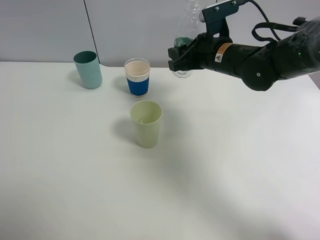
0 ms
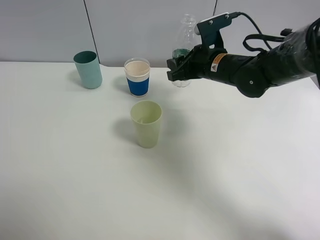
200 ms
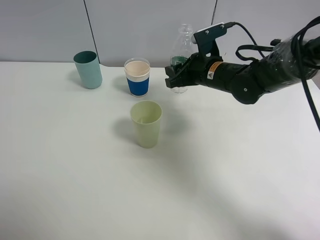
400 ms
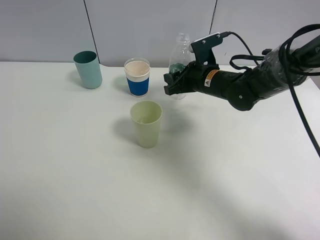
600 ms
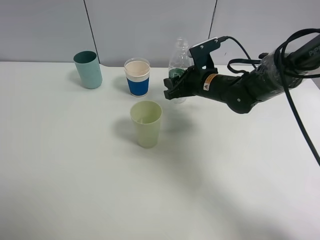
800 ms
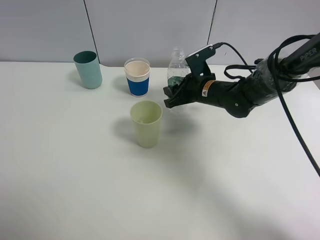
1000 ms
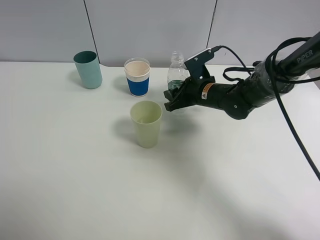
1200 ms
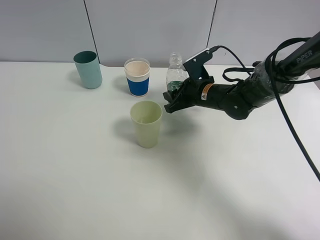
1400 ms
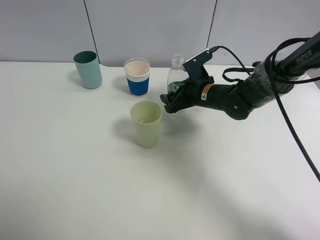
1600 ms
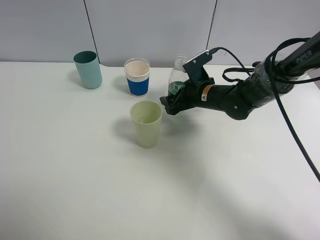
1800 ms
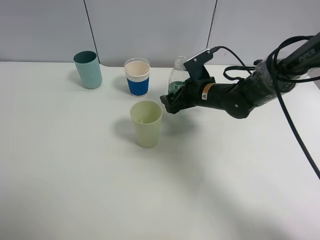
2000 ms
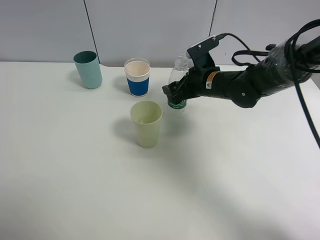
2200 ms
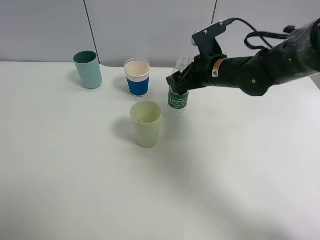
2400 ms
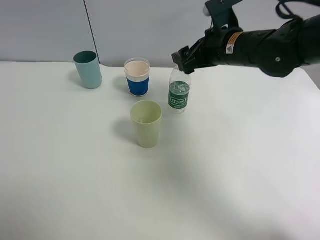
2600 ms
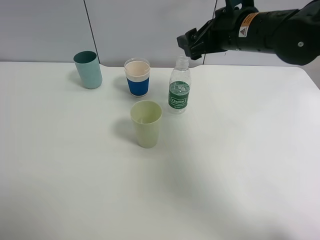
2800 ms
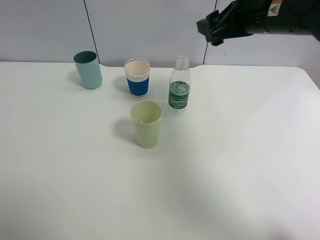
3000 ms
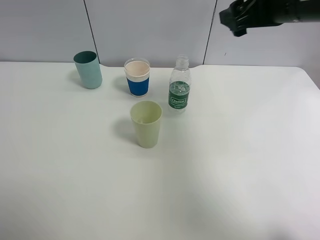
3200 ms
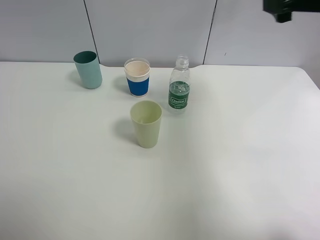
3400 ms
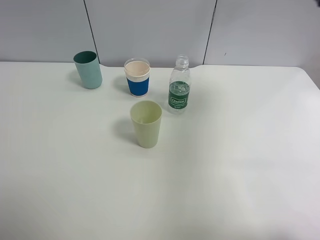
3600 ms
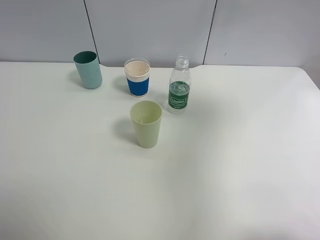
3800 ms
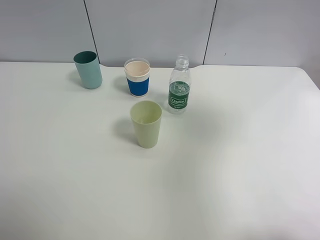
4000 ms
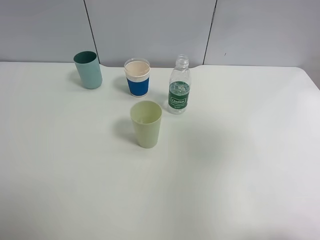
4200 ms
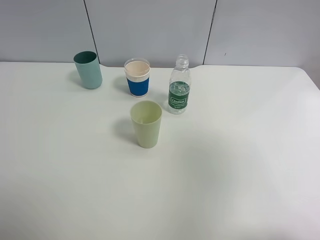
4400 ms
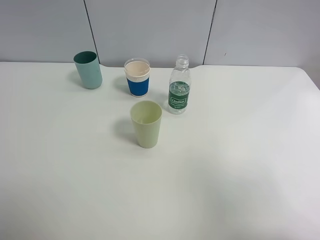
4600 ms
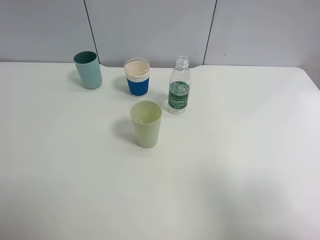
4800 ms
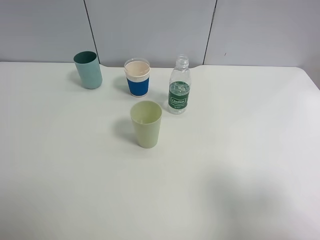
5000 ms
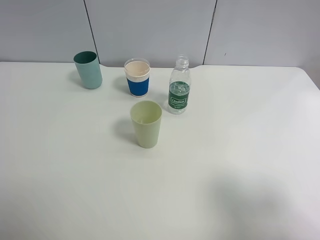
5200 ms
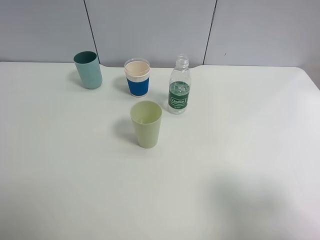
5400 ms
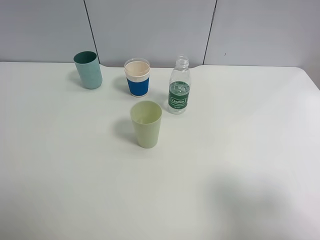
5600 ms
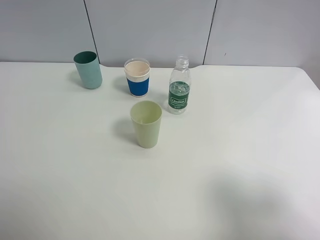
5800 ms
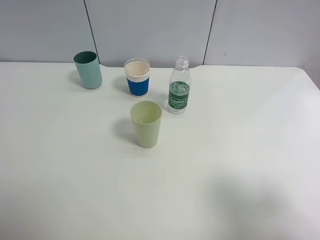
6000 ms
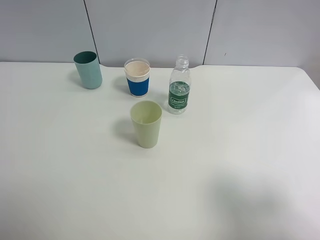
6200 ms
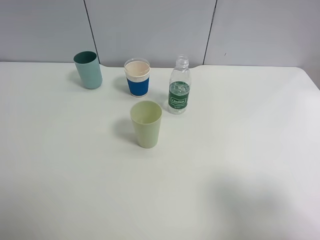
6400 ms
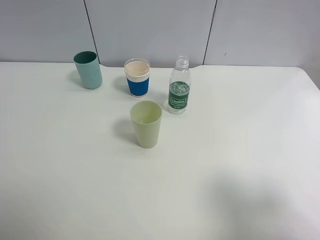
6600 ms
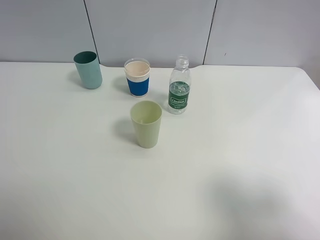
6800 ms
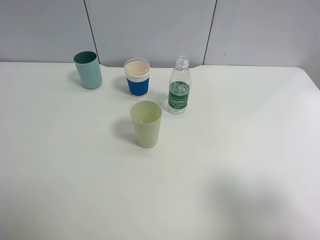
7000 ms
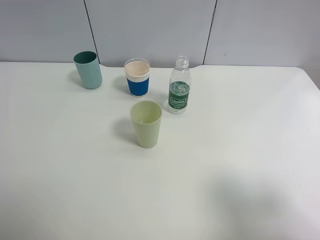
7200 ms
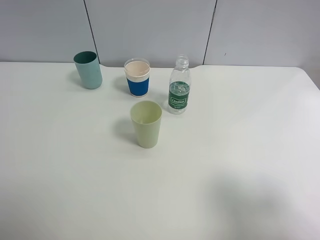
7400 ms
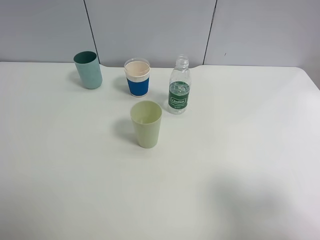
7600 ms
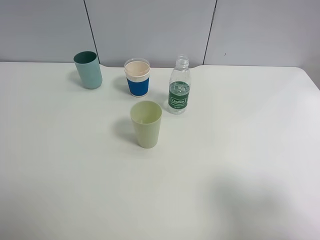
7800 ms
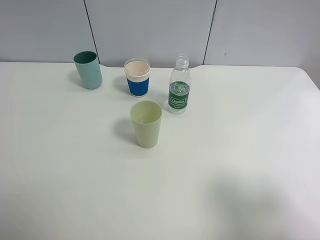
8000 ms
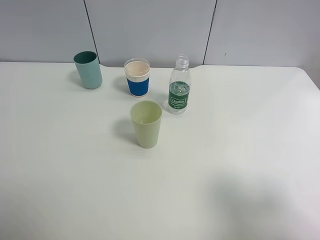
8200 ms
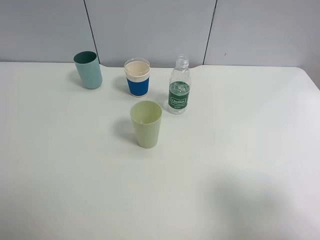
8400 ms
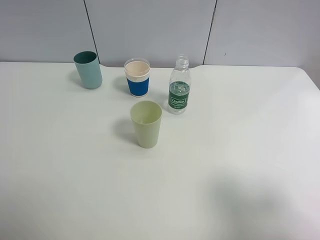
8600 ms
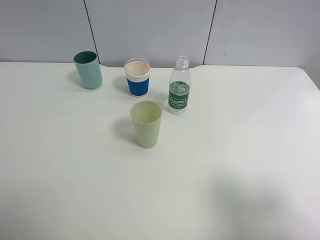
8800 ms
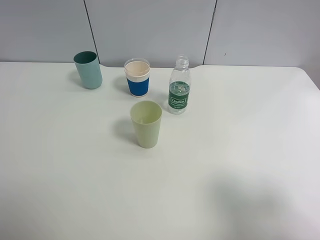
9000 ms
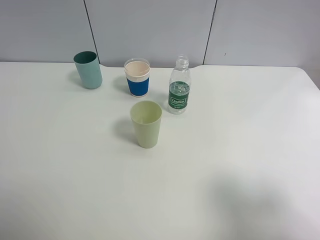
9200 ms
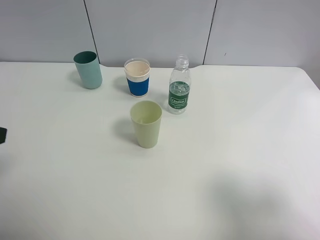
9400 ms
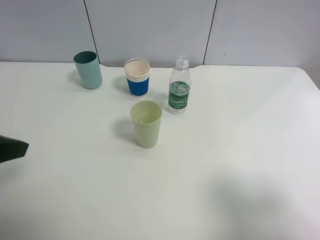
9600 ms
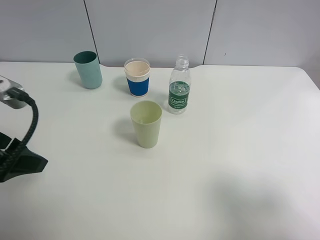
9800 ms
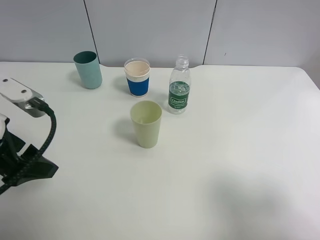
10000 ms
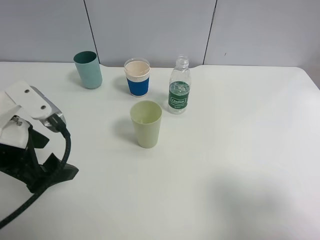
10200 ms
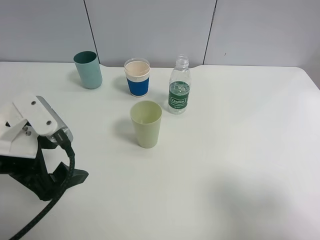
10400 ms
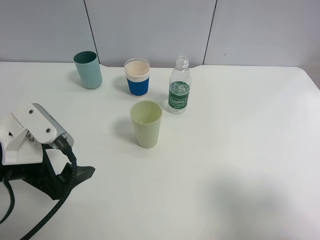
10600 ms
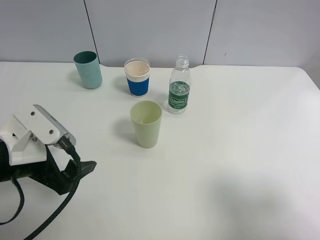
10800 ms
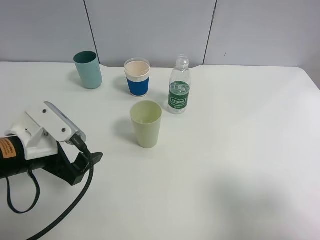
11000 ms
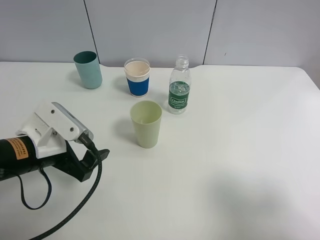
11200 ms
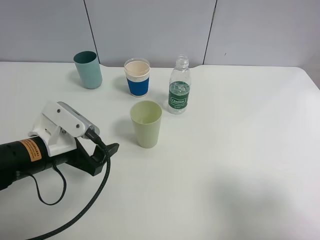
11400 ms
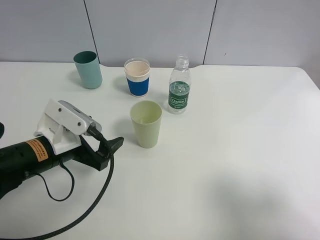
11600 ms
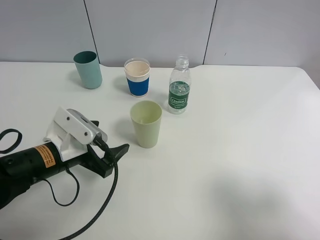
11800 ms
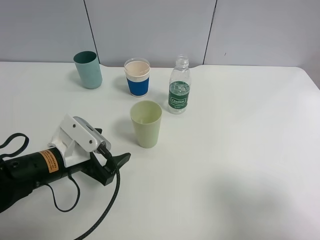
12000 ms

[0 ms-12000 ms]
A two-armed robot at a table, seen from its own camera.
Task of the whole recording: use a clamp to hold the bottle of the drink, pour the beverage into a random cup, then clamp the cup containing the drink and pour the drink into another random cup.
0 ms to 1600 ms: The right gripper is displaced downward by about 10 cm, and opens its fingers.
1600 ms to 3000 ms: The right gripper travels upward by some 20 cm.
3000 ms to 4400 ms: The right gripper goes approximately 30 cm backward and to the right.
4400 ms to 6000 ms: The right gripper shifts roughly 15 cm downward.
6000 ms to 7600 ms: Both grippers stay about where they are.
9000 ms to 10400 ms: The left gripper moves downward, forward and to the right, about 20 cm.
10400 ms to 12000 ms: The left gripper is displaced downward by some 10 cm.

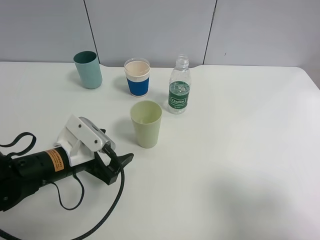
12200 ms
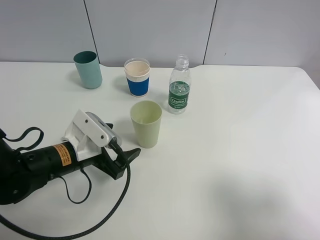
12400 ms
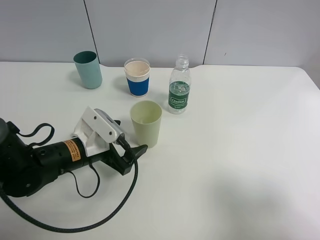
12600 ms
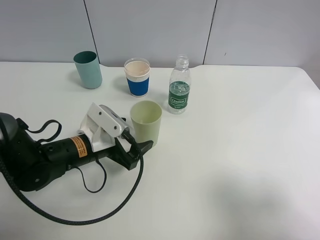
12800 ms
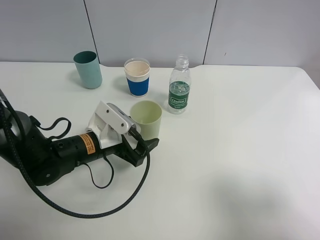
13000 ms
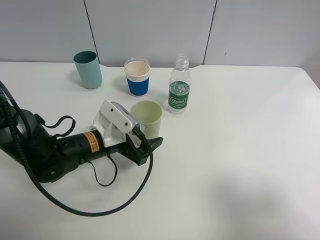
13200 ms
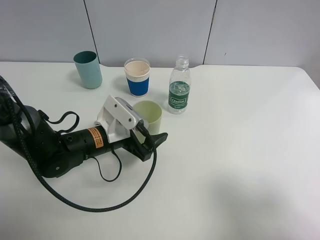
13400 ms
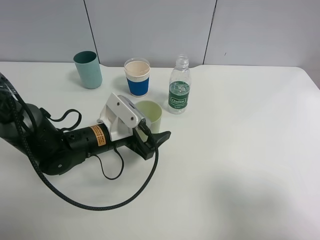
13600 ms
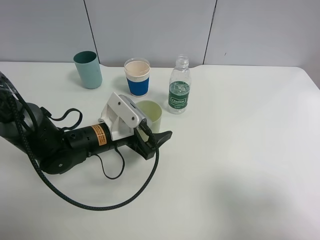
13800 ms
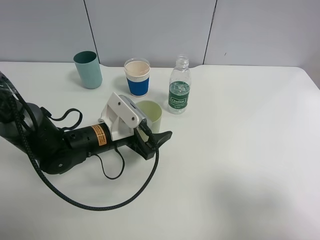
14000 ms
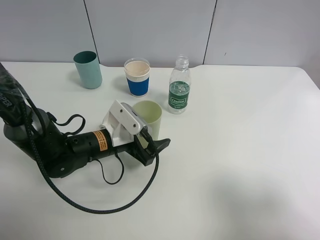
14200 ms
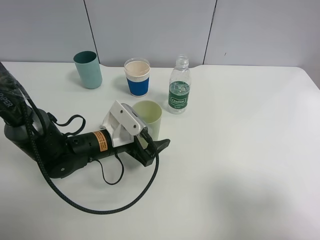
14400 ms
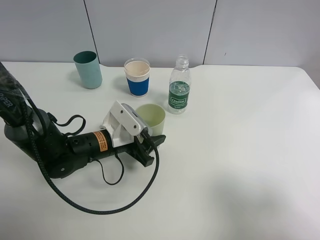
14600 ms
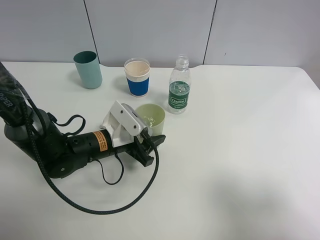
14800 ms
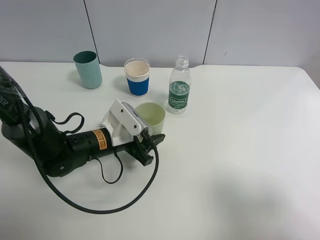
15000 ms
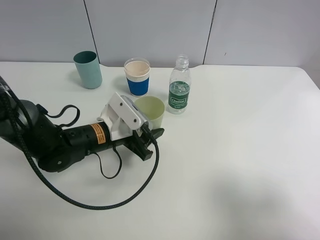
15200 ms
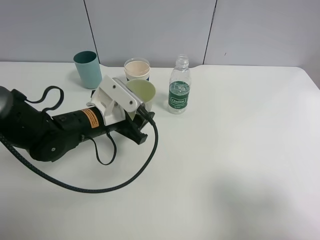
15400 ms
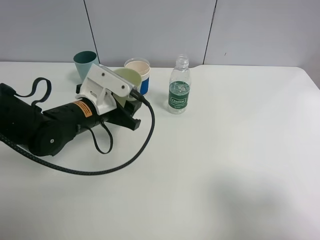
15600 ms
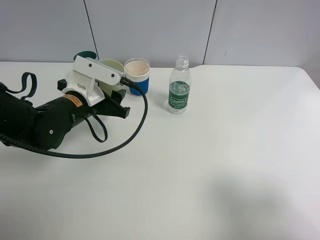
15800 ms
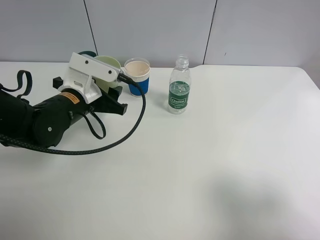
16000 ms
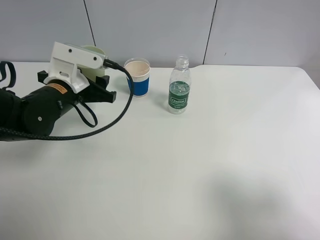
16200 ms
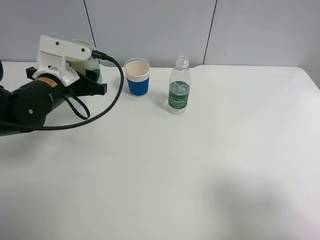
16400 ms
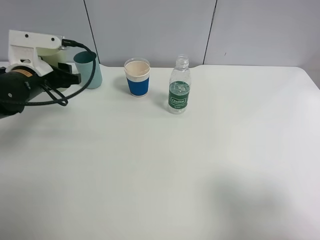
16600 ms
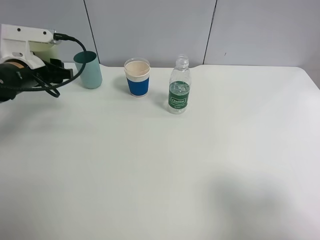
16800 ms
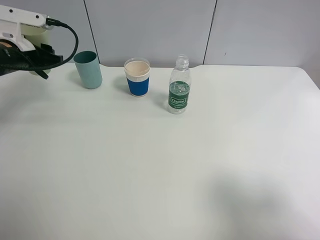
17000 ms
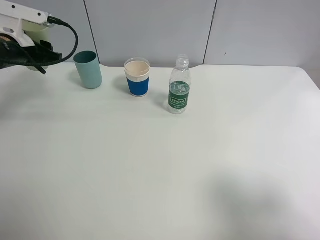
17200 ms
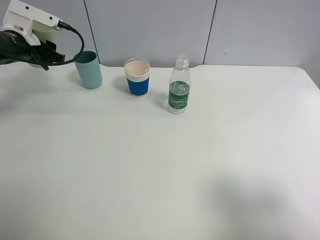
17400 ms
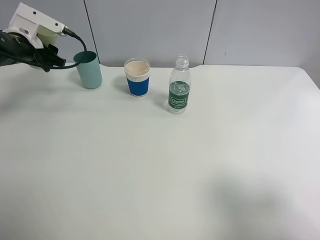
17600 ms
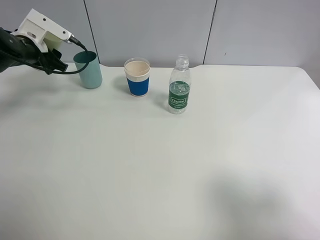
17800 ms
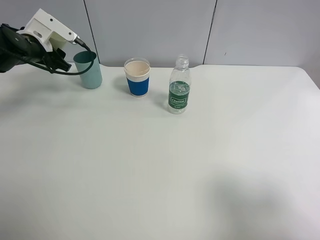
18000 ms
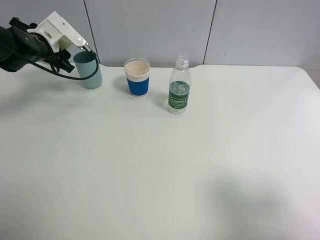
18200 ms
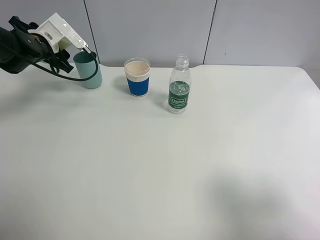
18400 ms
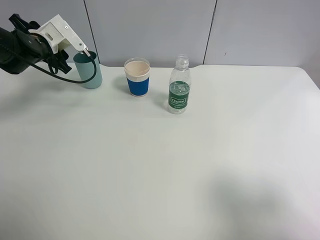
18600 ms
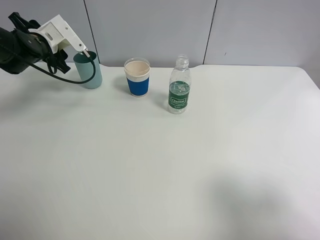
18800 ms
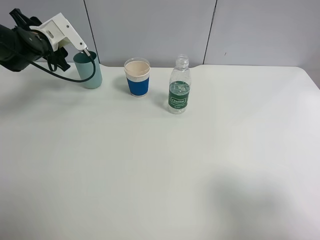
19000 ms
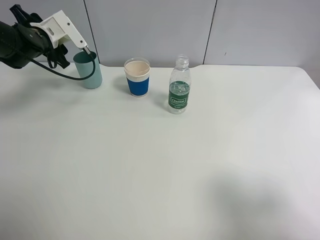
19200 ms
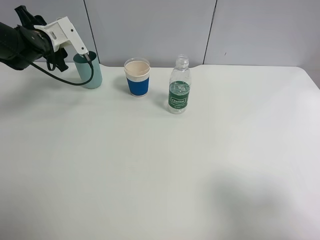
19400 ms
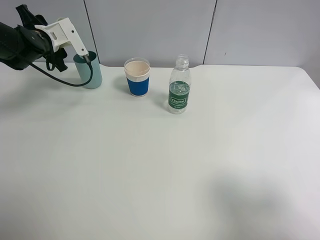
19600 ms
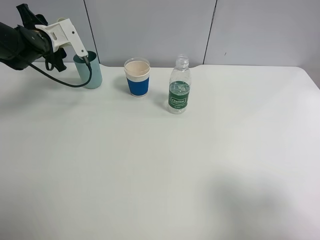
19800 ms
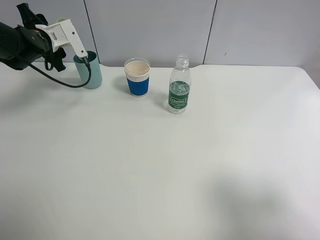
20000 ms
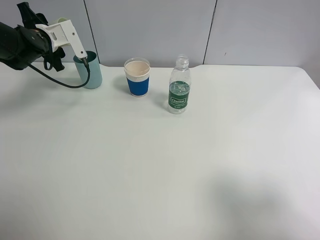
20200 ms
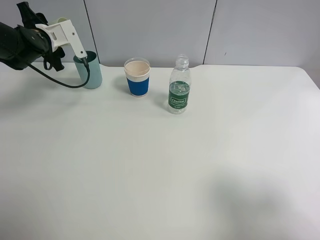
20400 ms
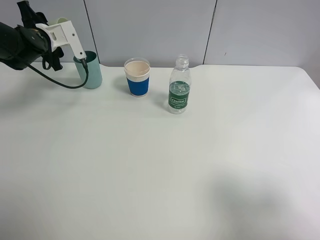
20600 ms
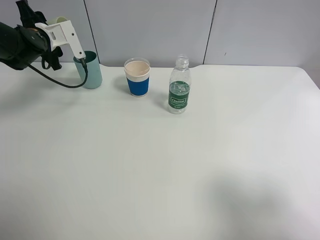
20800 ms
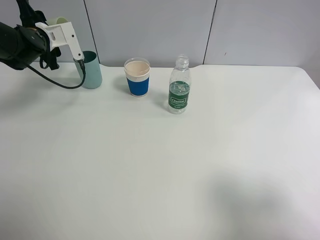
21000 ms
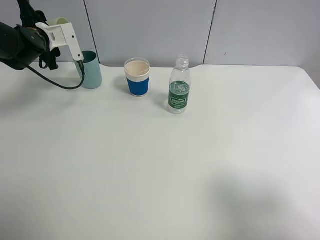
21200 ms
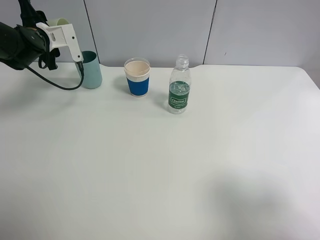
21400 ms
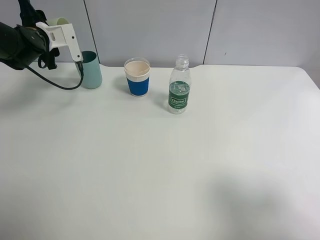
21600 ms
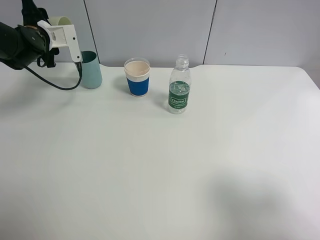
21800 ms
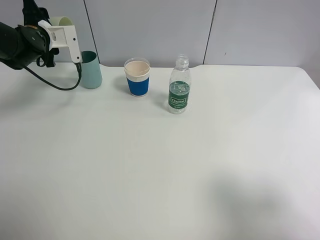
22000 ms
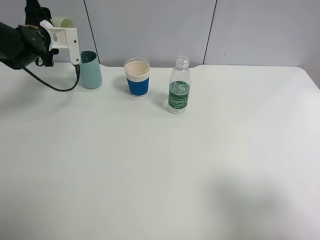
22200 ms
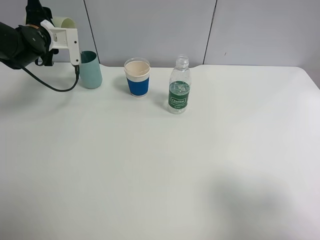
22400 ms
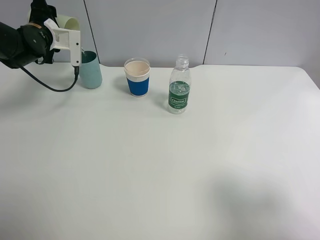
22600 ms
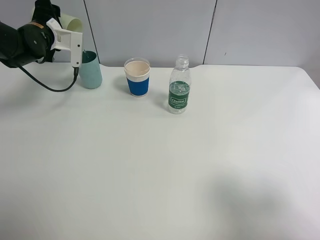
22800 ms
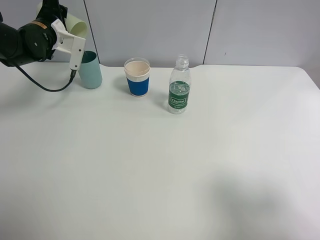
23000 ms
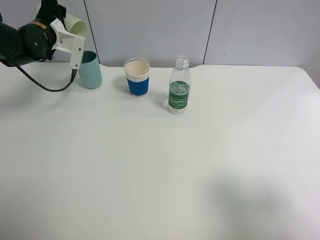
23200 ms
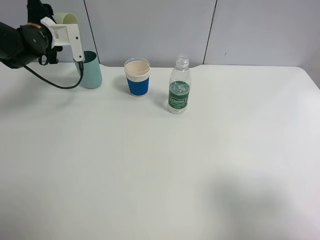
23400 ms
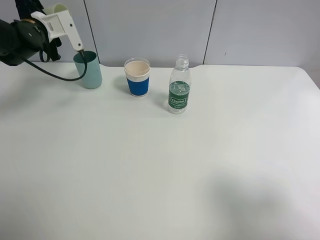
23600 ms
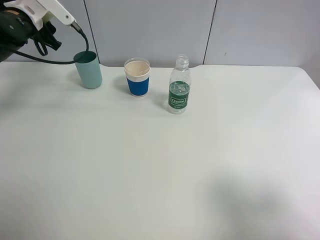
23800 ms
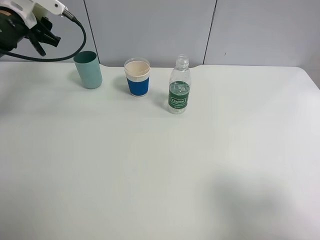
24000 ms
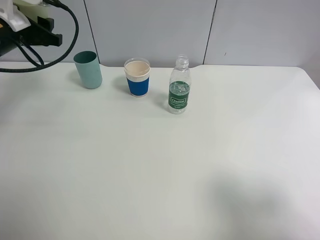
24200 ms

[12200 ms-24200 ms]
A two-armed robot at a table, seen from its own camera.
Task of the whole recording: use a clamp to hold the bottle of the drink, pour the beverage into a random cup, then clamp the cup containing the drink and pour the drink into another random cup.
Step, 12200 ms to 16400 ms: Pick up the green plastic cup bottle with left gripper.
Step, 16600 ms to 23600 ms: Pour the water into the blue plastic cup with left gripper.
12200 ms to 13800 ms: The left gripper shifts roughly 10 cm to the right and forward.
13800 ms to 15200 ms: The left gripper closes its fingers.
15200 ms to 16600 ms: The left gripper shifts roughly 15 cm to the left and upward.
16600 ms to 18200 ms: The left gripper moves forward, some 10 cm.
19800 ms to 21200 ms: The grippers make only small movements.
22600 ms to 24200 ms: The left gripper goes approximately 10 cm backward.
